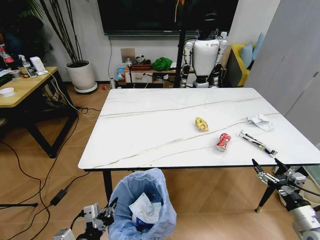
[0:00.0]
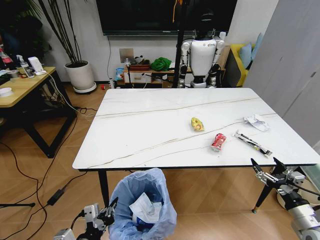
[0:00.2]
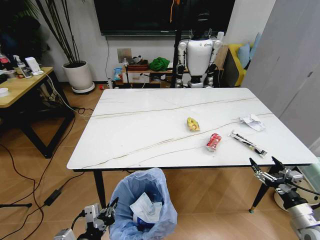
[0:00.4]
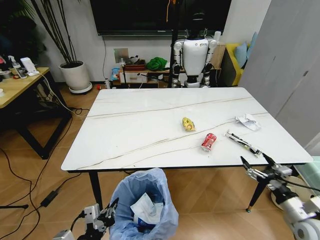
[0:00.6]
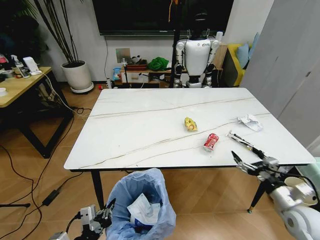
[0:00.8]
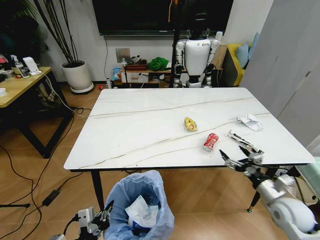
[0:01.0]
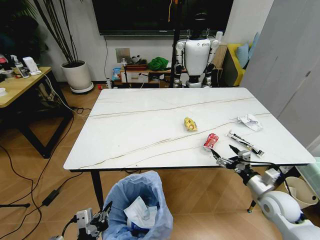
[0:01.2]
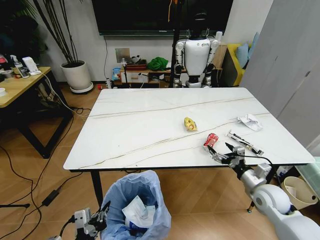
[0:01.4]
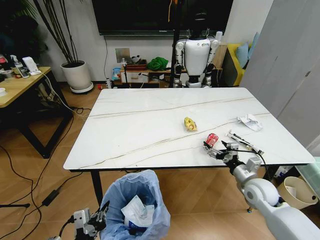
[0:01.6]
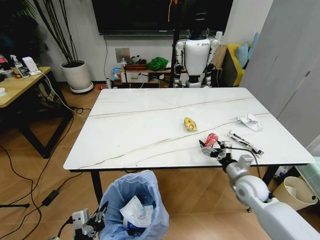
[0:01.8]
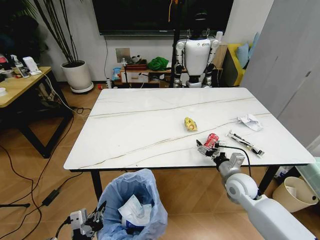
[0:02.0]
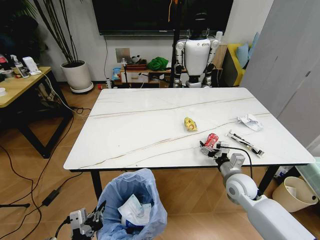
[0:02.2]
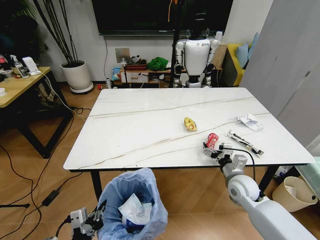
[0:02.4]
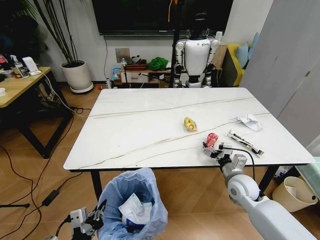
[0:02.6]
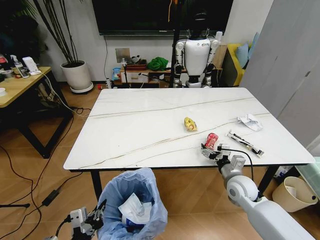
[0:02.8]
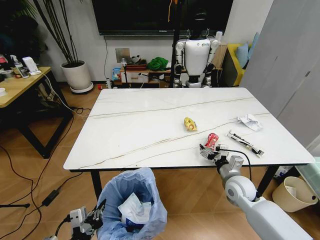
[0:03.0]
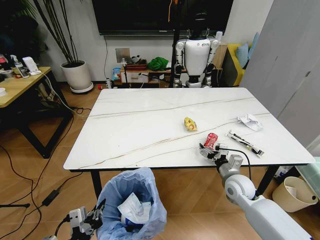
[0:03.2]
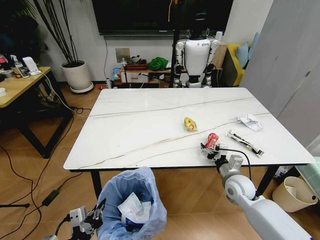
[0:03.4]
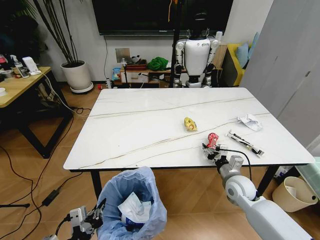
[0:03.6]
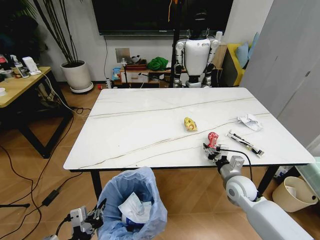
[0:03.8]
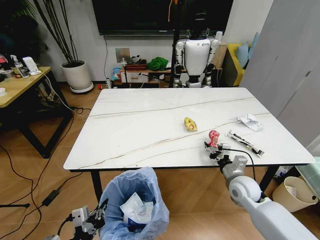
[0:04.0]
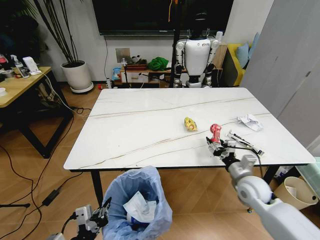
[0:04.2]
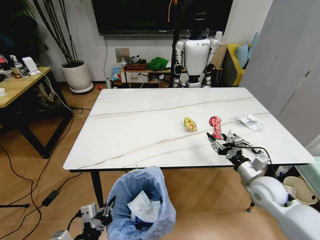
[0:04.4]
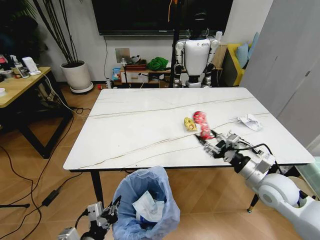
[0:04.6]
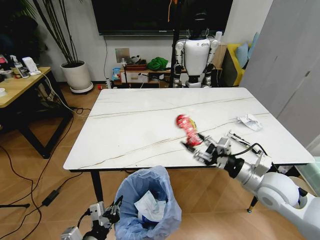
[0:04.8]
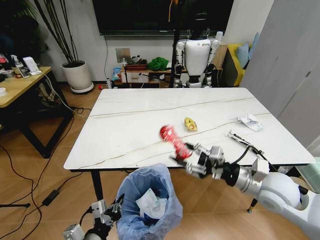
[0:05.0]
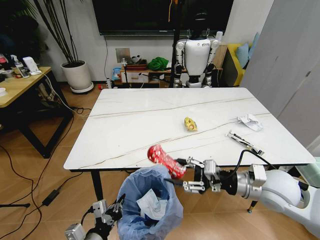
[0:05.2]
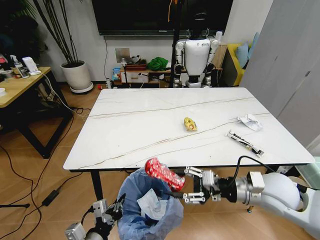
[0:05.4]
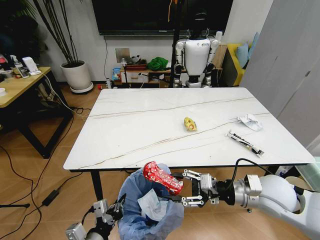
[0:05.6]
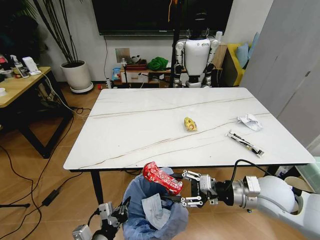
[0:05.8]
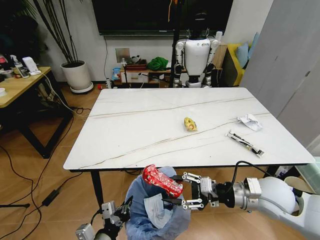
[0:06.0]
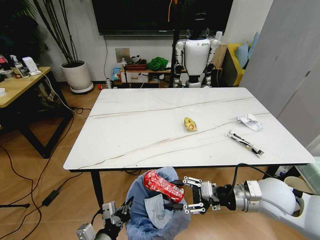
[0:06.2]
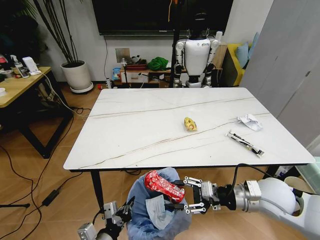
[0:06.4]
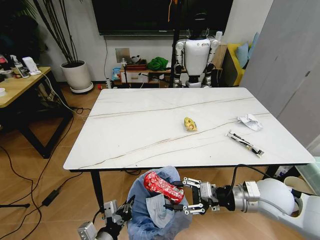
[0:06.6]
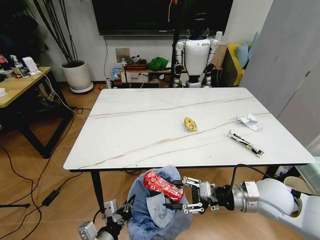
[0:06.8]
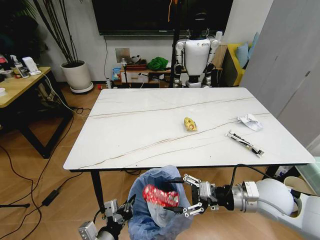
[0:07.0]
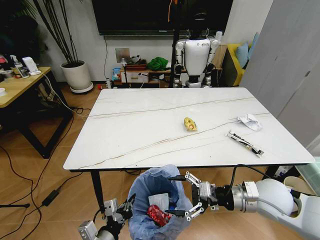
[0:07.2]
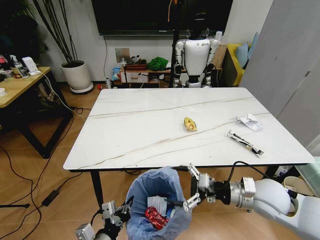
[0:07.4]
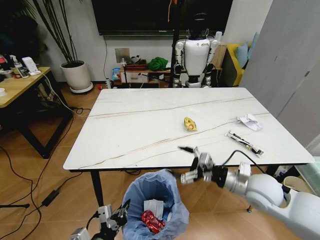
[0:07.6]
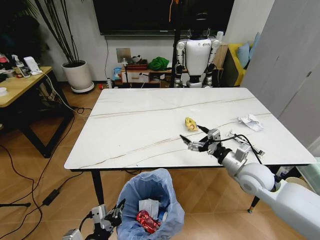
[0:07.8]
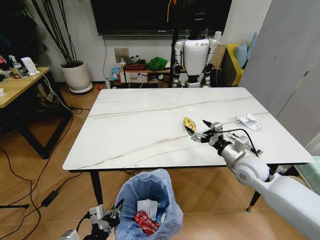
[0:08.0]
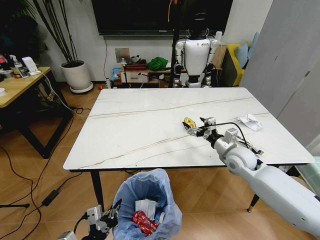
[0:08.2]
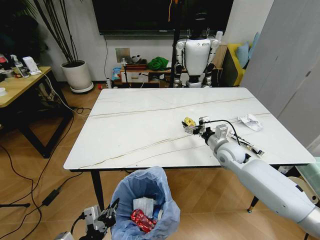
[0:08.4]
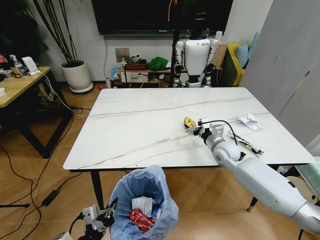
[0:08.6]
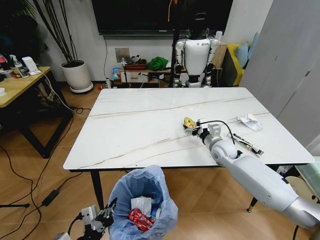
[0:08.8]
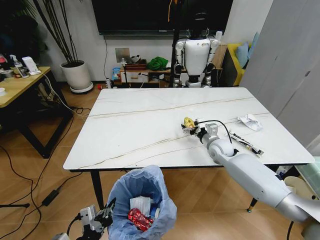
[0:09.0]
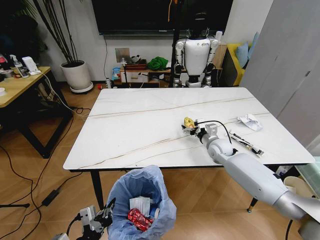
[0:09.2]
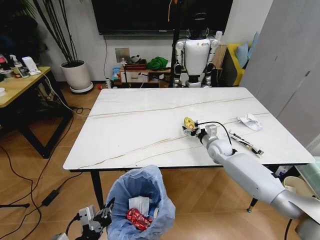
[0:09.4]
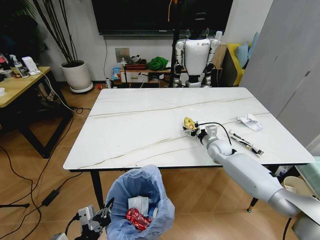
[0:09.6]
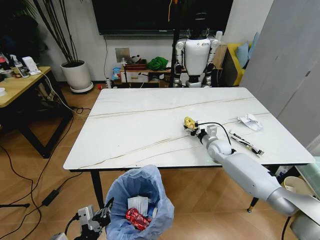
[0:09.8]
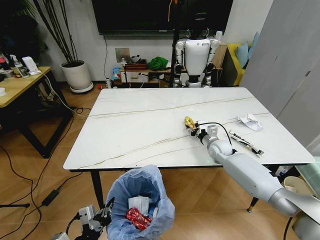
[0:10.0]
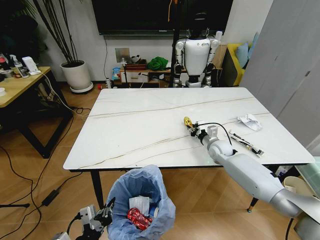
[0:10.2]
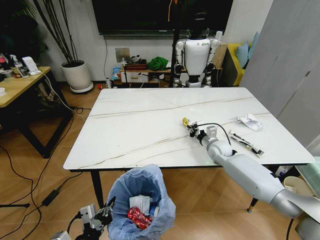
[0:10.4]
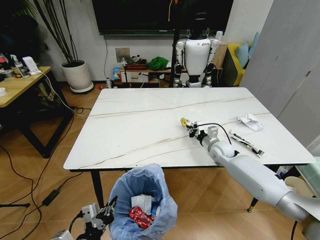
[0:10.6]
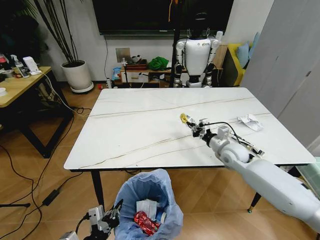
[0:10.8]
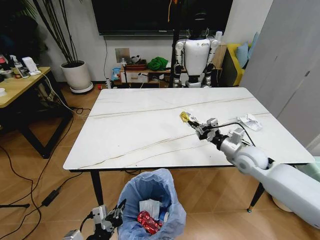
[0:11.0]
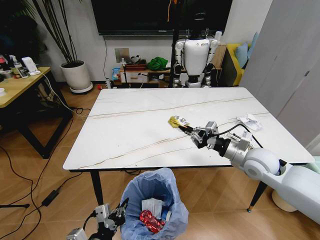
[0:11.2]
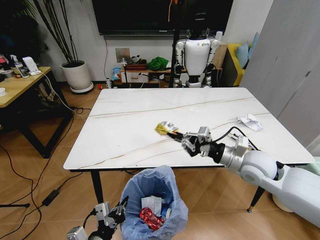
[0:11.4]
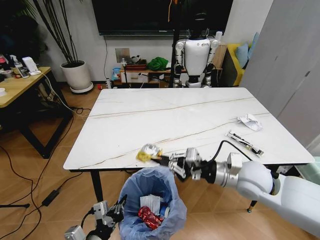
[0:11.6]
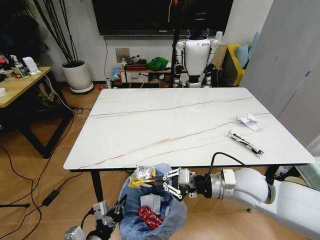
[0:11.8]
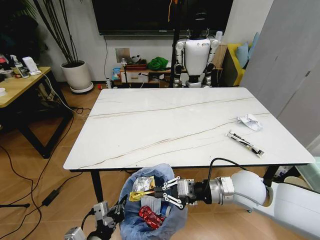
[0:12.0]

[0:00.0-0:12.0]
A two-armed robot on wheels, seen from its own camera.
Task of the whole recording: Pick up the trash bin and place the trash from the table into it.
0:00.0 to 0:01.6: The right gripper shifts about 20 cm forward and to the left.
0:01.6 to 0:03.0: The right gripper goes approximately 5 cm to the left.
0:03.0 to 0:04.4: The right gripper travels to the right by approximately 5 cm, and closes its fingers.
0:04.4 to 0:06.0: The right gripper heads upward, covering approximately 5 cm. The left gripper changes place by about 5 cm.
0:06.0 to 0:07.6: The right gripper opens.
0:07.6 to 0:09.0: The right gripper travels forward by some 20 cm.
0:09.0 to 0:10.4: The right gripper closes up.
0:10.4 to 0:12.0: The right gripper heads backward and upward, covering some 25 cm.

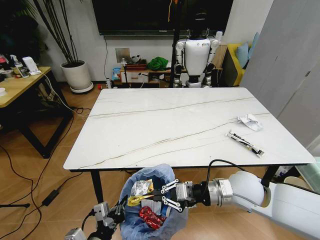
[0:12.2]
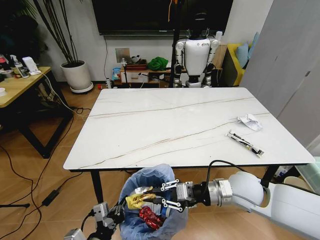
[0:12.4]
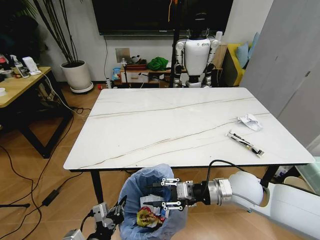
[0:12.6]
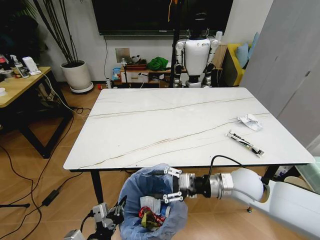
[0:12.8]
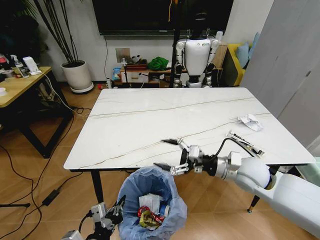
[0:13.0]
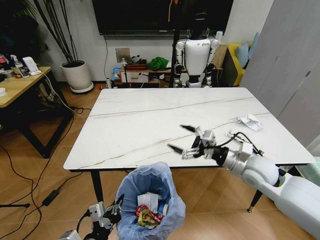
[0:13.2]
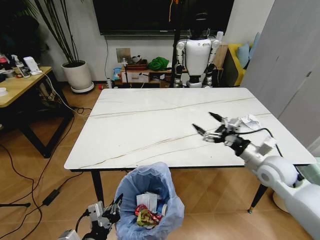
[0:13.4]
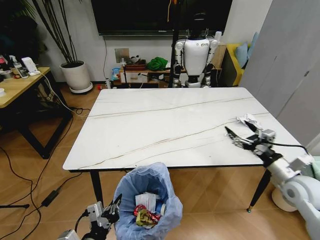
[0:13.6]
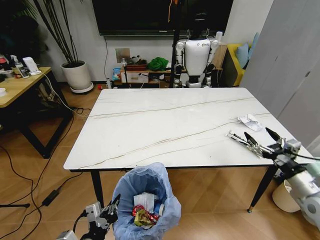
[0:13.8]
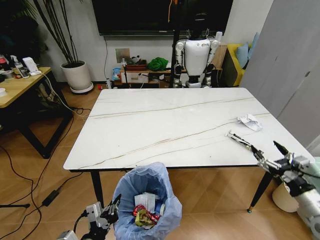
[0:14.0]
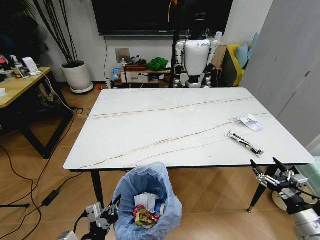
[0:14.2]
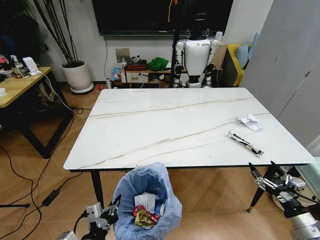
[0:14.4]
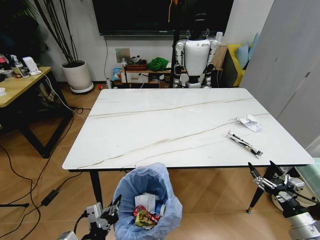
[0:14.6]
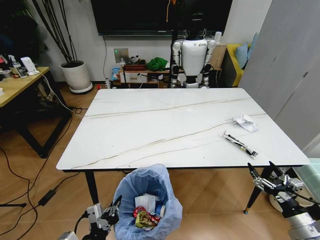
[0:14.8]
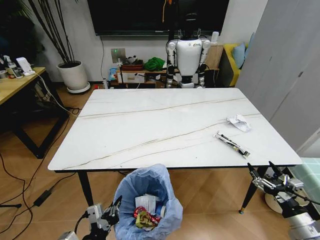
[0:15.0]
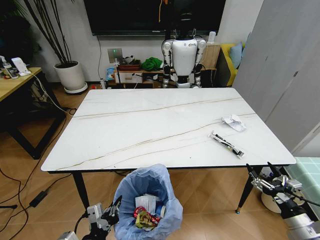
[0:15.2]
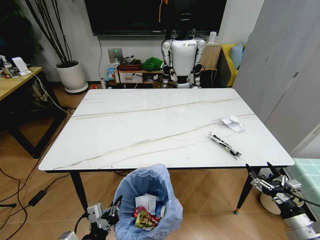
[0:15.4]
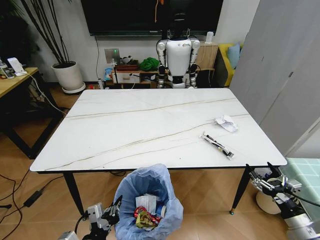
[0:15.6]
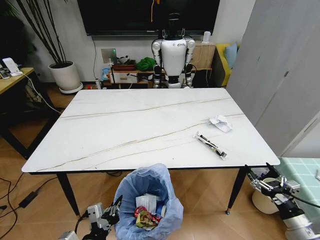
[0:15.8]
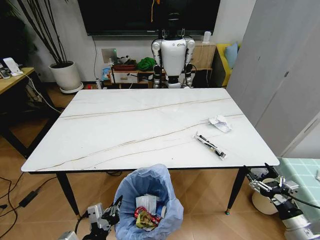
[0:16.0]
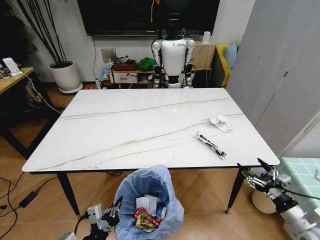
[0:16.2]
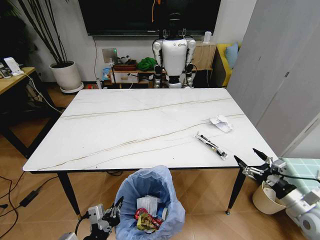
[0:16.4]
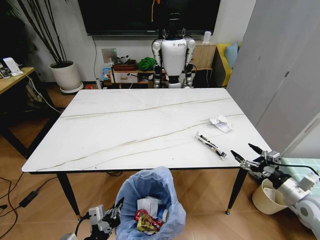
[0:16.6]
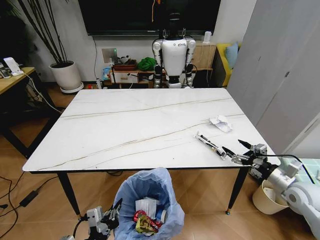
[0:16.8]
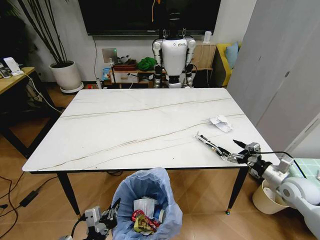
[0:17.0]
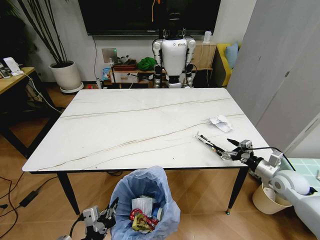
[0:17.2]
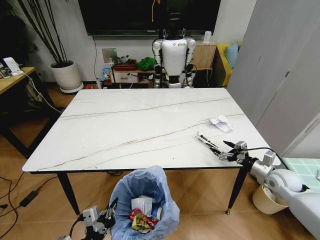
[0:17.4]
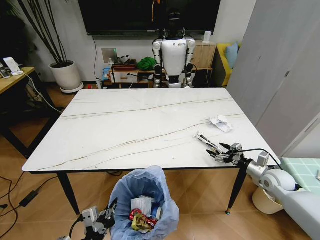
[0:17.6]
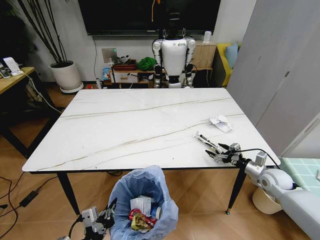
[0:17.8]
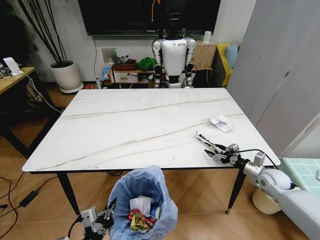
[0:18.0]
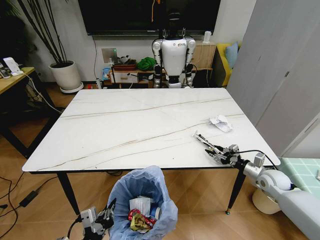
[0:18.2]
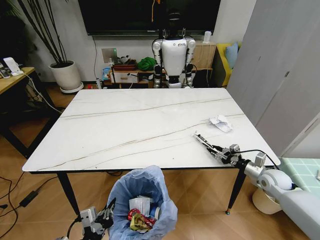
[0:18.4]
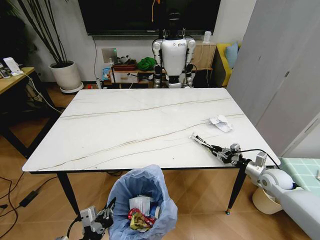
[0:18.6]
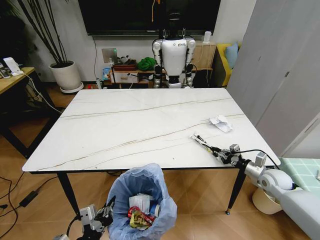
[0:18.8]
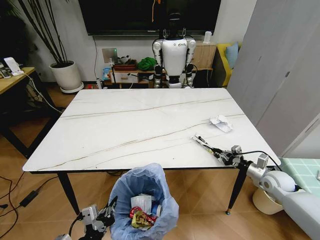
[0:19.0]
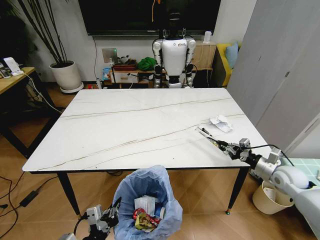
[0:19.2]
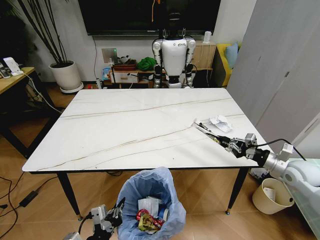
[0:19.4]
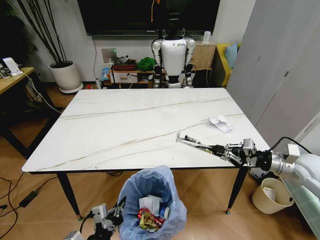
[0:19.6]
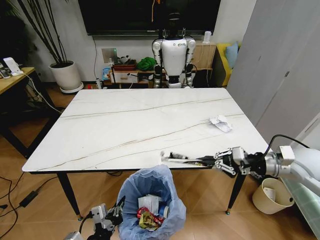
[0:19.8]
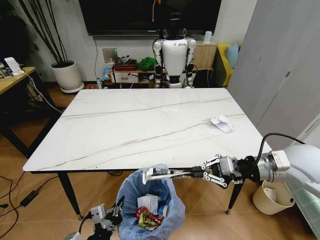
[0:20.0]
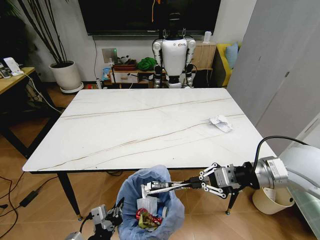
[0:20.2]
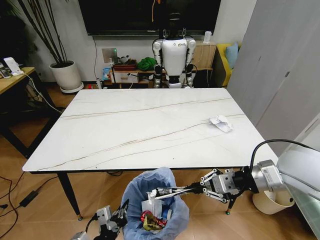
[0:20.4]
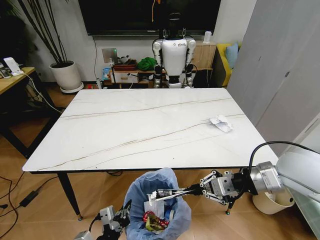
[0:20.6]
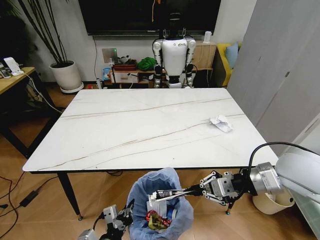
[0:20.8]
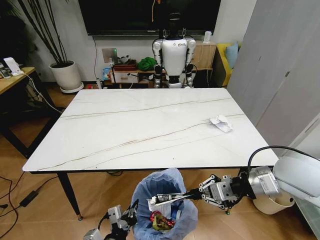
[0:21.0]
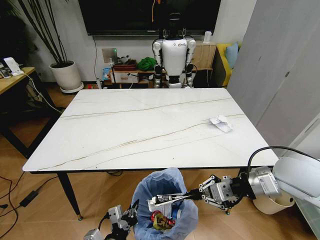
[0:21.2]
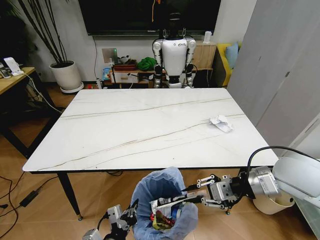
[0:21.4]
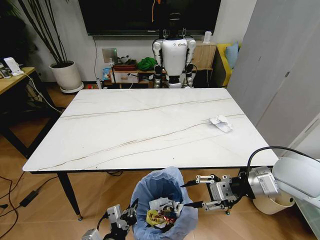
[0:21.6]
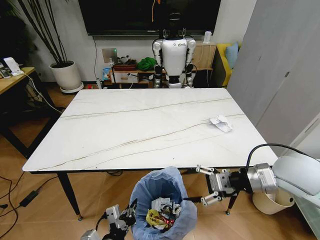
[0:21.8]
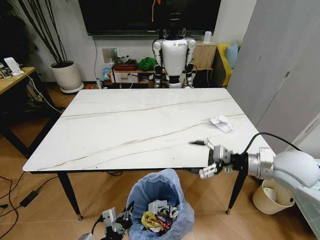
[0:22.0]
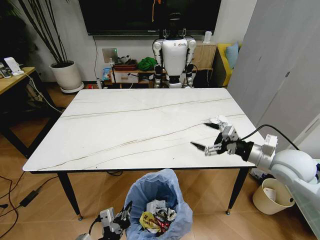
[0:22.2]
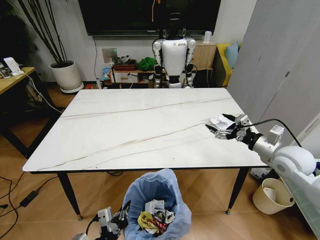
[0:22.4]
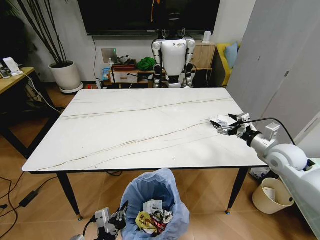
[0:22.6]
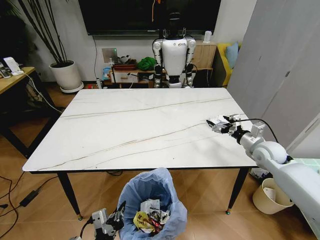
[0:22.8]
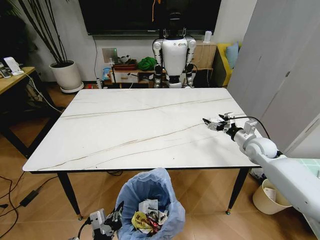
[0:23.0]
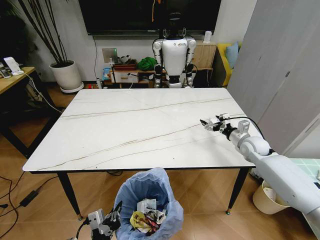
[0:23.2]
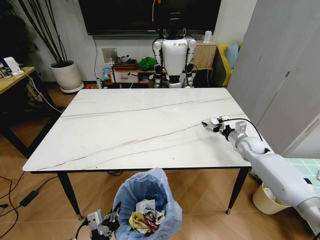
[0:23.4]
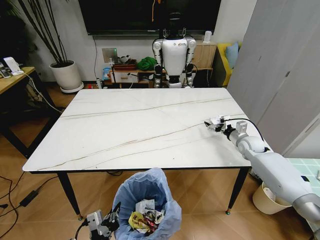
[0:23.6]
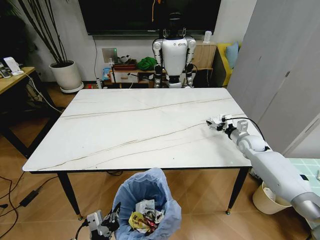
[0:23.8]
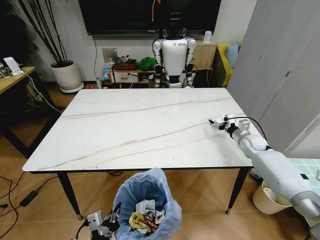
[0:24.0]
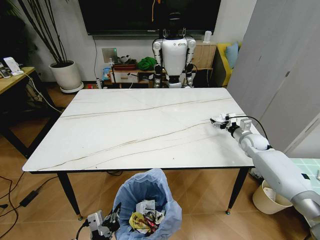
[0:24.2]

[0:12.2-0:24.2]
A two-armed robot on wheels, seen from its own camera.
Task of the whole recording: Pick up the trash bin and place the trash from the table into it.
0:12.2 to 0:13.8: The right gripper shifts approximately 20 cm to the right, and opens its fingers.
0:13.8 to 0:15.2: The right gripper goes some 15 cm backward and downward.
0:15.2 to 0:16.6: The right gripper shifts about 10 cm forward.
0:16.6 to 0:18.2: The right gripper goes about 15 cm forward and downward, and closes up.
0:18.2 to 0:19.8: The right gripper is displaced upward by some 20 cm, and closes its fingers.
0:19.8 to 0:21.2: The right gripper goes approximately 10 cm to the left and backward.
0:21.2 to 0:22.6: The right gripper shifts some 15 cm forward, to the right and downward, and opens its fingers.
0:22.6 to 0:24.2: The right gripper is displaced forward and downward by approximately 15 cm.
